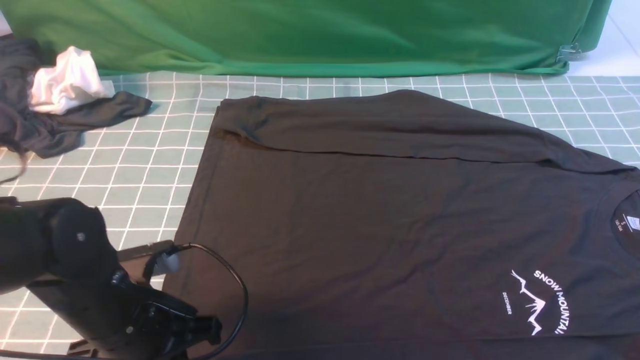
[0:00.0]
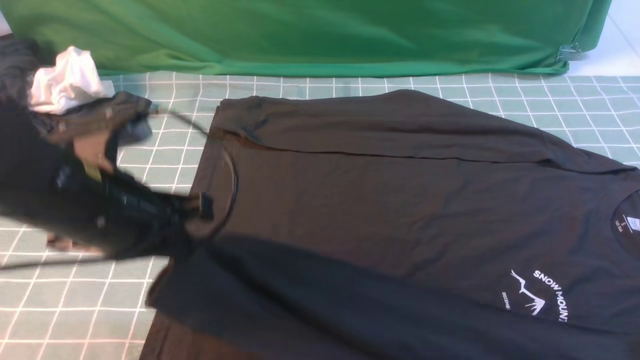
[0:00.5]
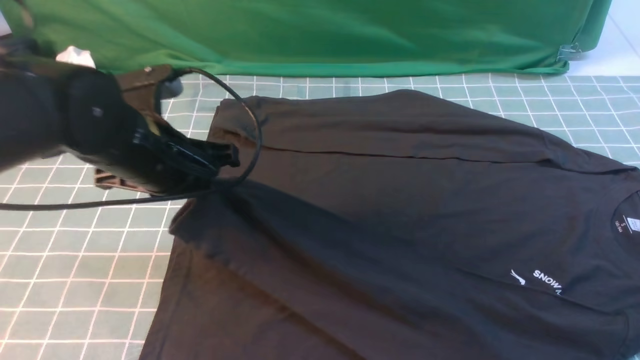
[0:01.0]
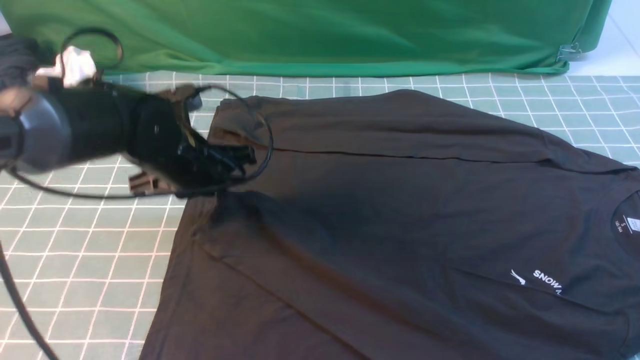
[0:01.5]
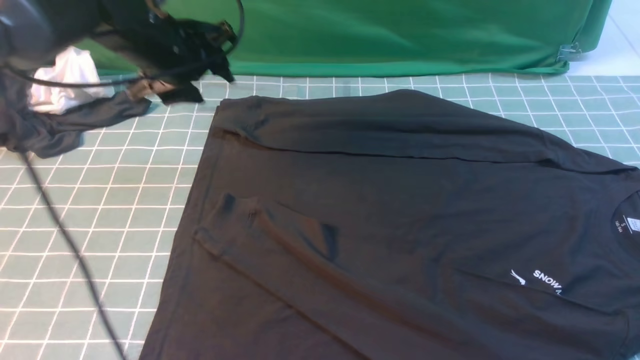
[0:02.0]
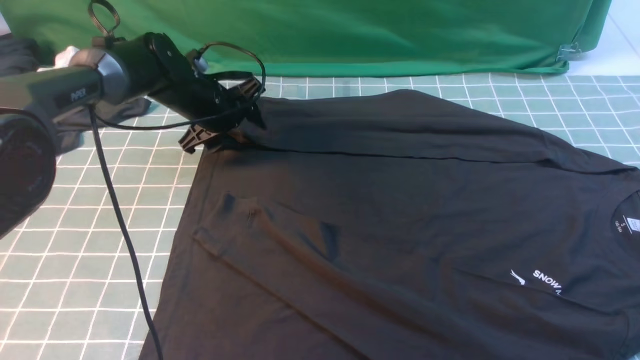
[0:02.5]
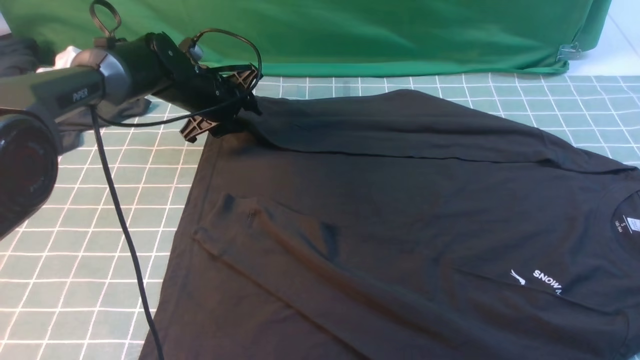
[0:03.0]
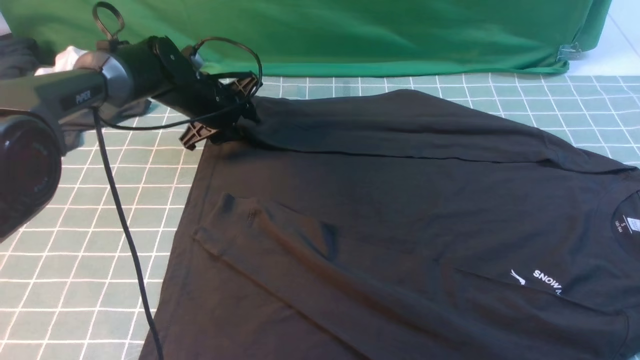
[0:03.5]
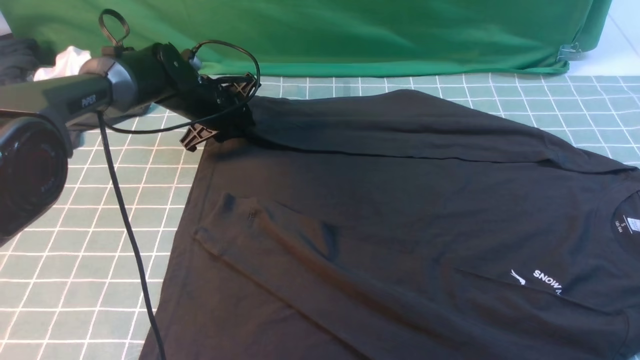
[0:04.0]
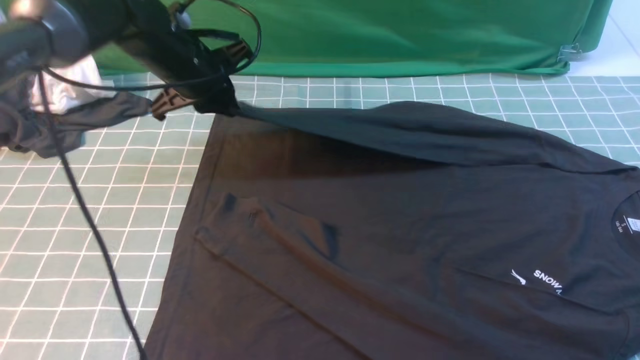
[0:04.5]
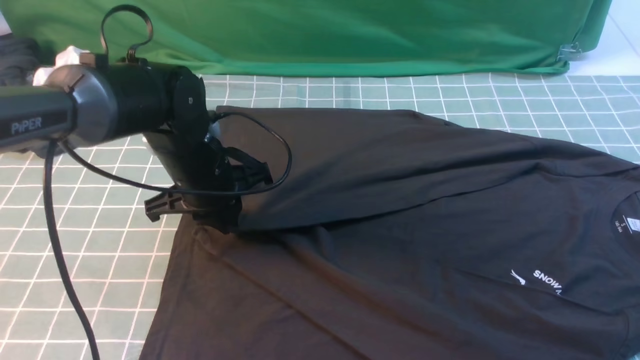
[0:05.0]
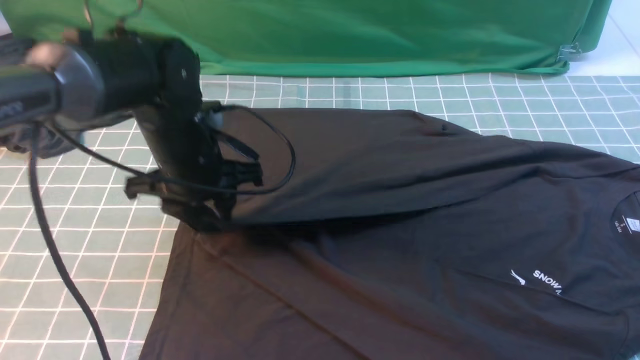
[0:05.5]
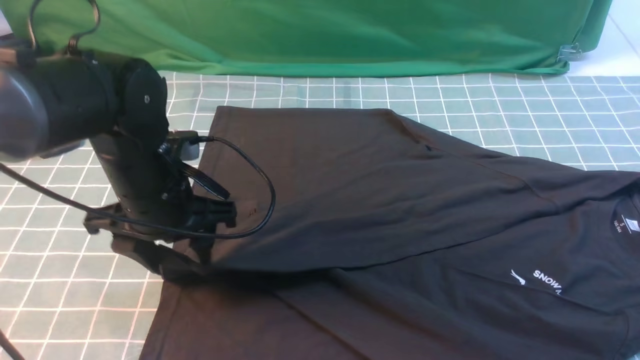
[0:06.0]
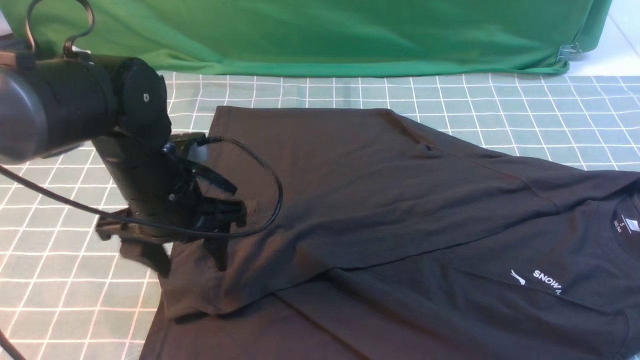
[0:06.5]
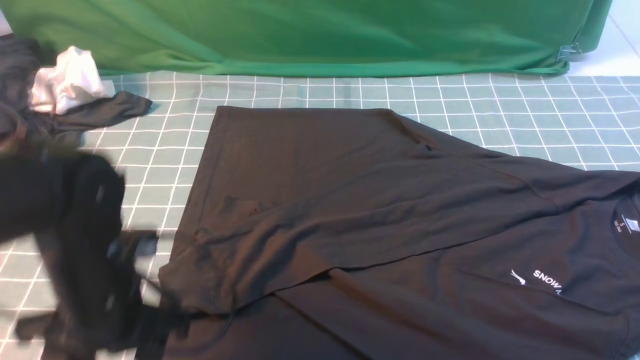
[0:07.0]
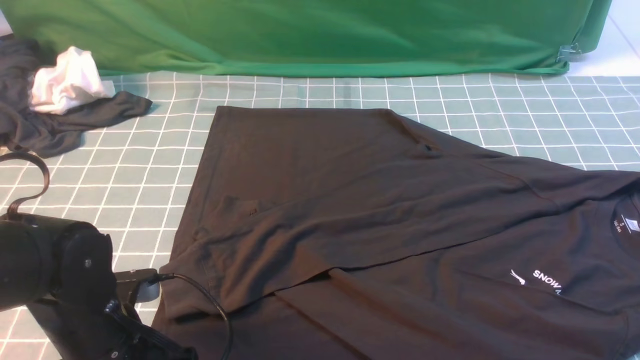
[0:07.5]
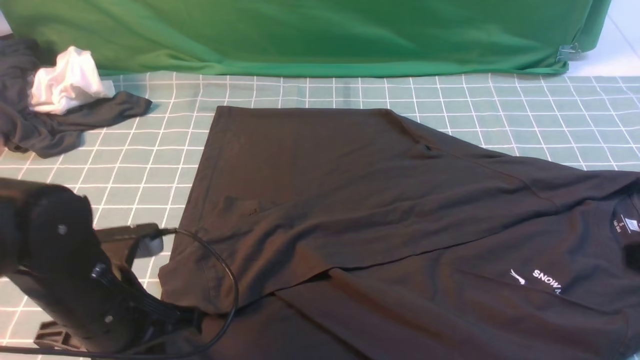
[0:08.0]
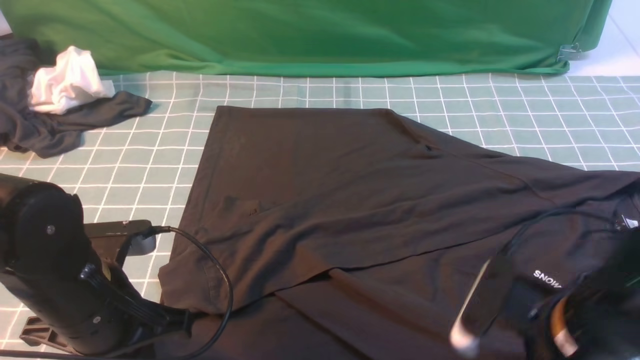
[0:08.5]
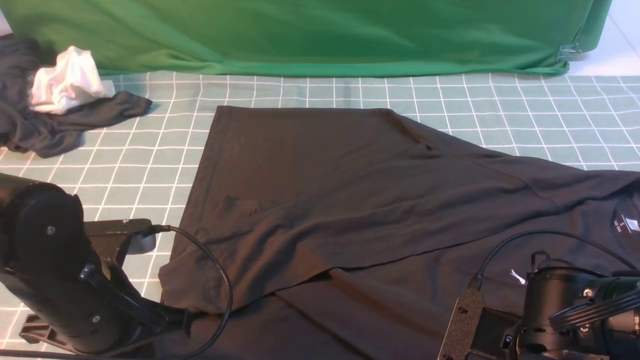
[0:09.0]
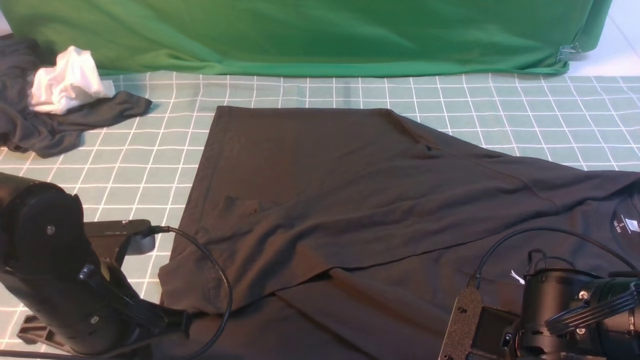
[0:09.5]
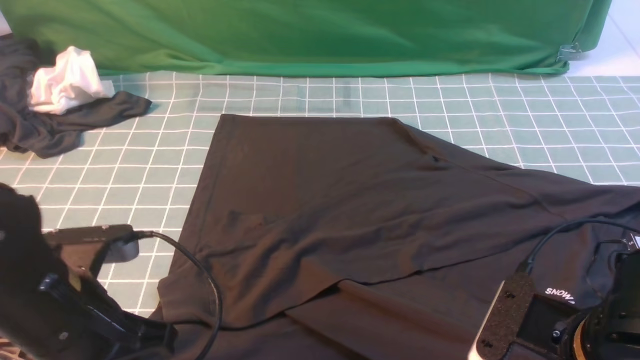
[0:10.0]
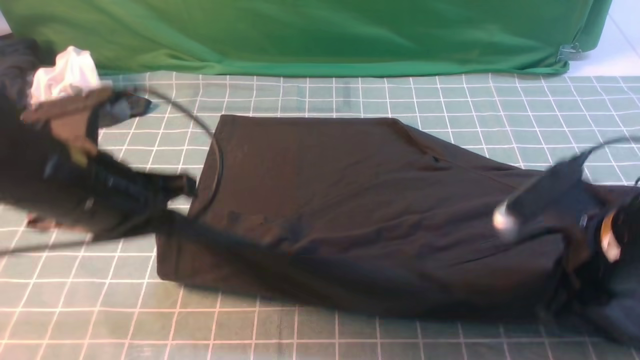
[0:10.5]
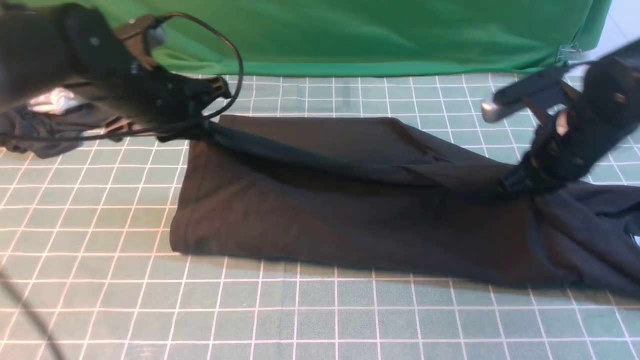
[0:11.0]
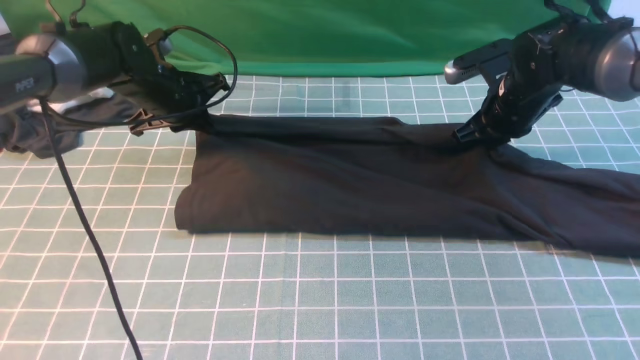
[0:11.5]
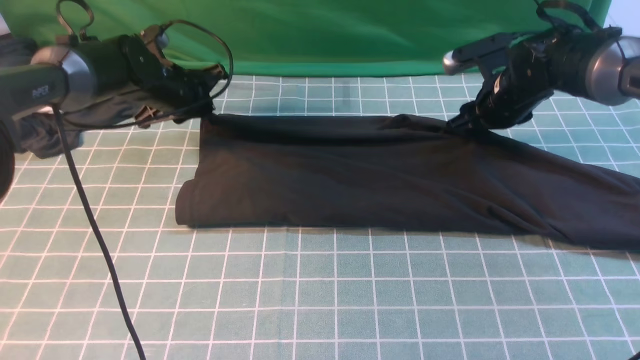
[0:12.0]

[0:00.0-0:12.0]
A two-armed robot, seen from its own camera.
Step, 0:00.5 to 0:01.5: use the left arm to drag and place the cuff at the centered position on the left edge of the fabric.
Step, 0:02.0 to 0:04.0: use the left arm to clamp the cuff farthest from it.
Step, 0:04.5 to 0:06.5: use the left arm to drag and drop the cuff onto the cuff closest to the left arm.
Step, 0:07.0 to 0:10.0: use both arms simultaneously to clamp the lower edge of the clothing fabric.
0:00.0 to 0:02.0: The left gripper is displaced forward by approximately 25 cm, and opens.
0:02.0 to 0:04.0: The left gripper moves downward and forward, about 10 cm, and closes up.
0:04.0 to 0:06.0: The left gripper moves backward, some 20 cm, and opens its fingers.
0:06.0 to 0:08.0: The left gripper shifts approximately 10 cm backward, and closes.
0:08.0 to 0:10.0: The right gripper travels to the left and downward by approximately 10 cm, and closes its fingers.
0:10.0 to 0:12.0: The grippers both shift forward by about 35 cm. The right gripper opens.

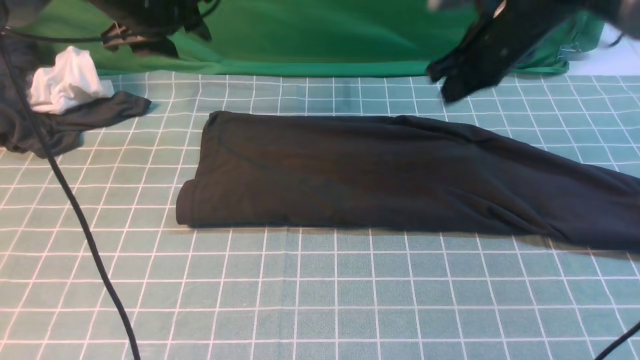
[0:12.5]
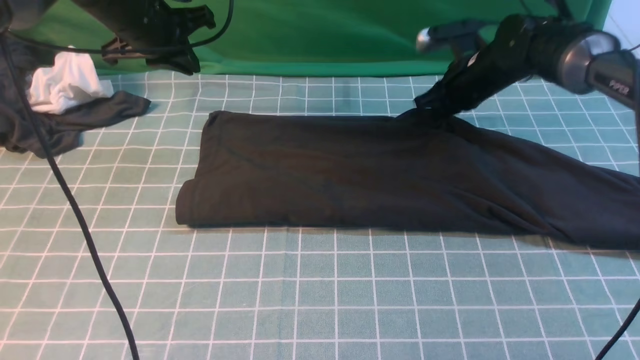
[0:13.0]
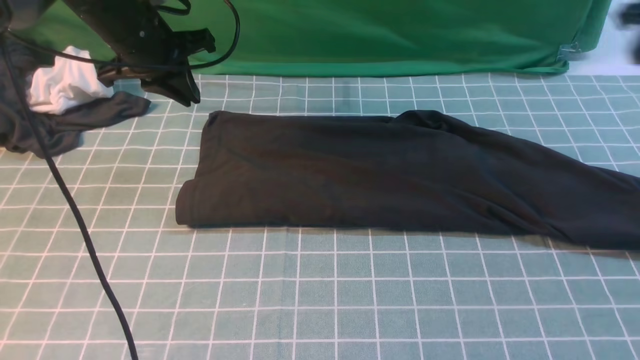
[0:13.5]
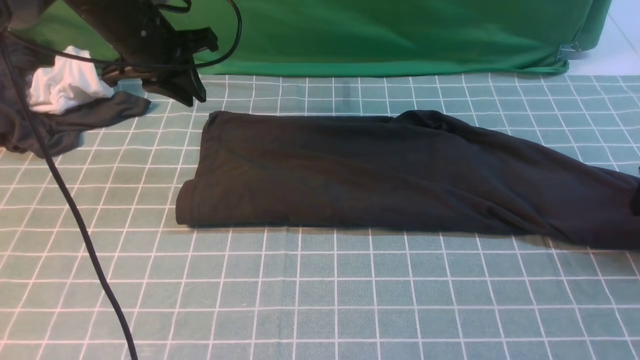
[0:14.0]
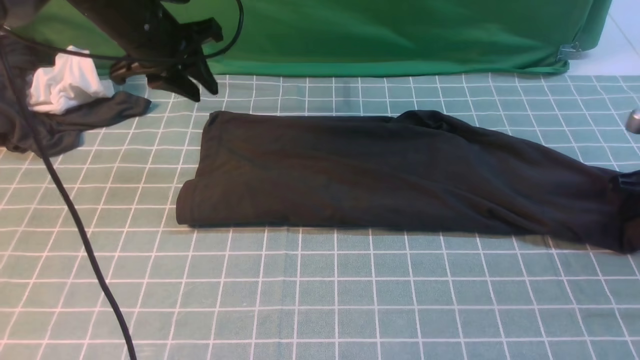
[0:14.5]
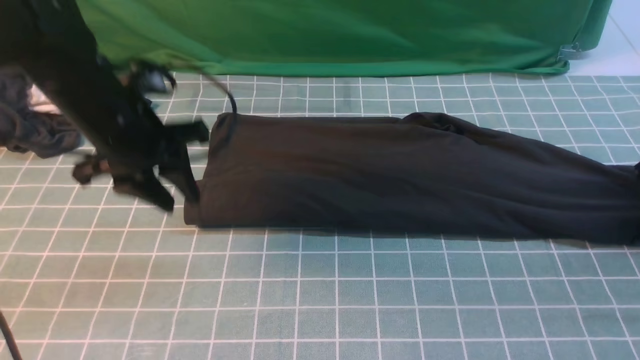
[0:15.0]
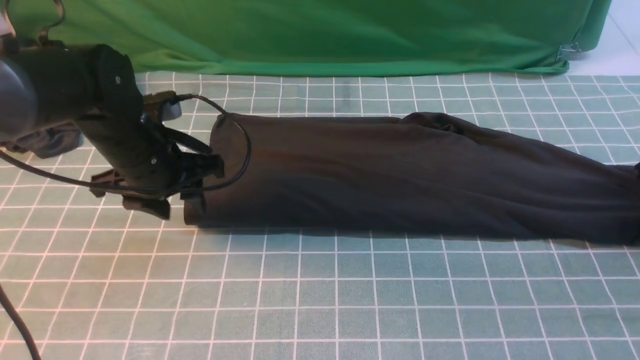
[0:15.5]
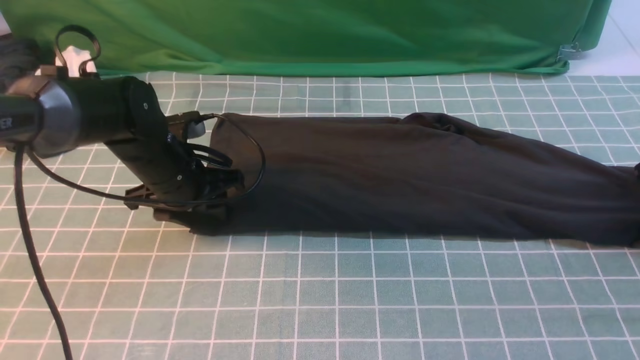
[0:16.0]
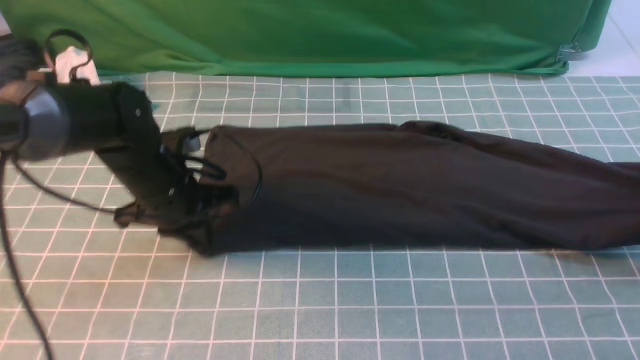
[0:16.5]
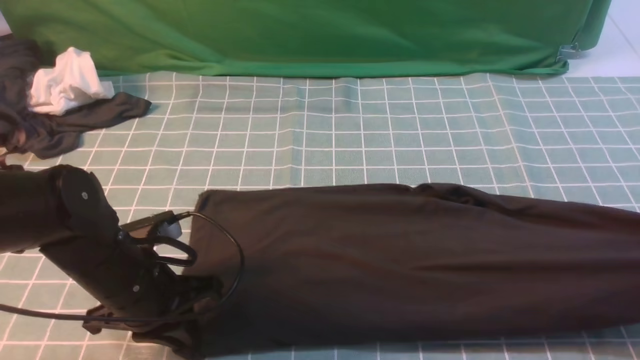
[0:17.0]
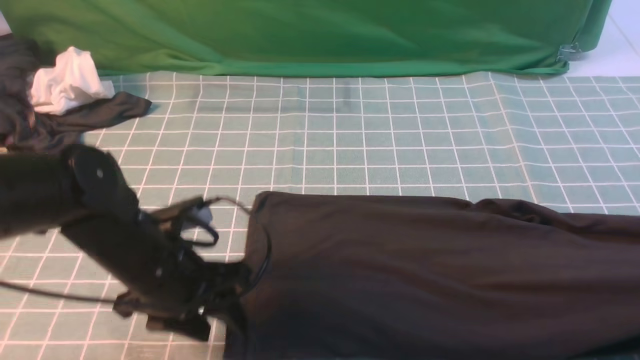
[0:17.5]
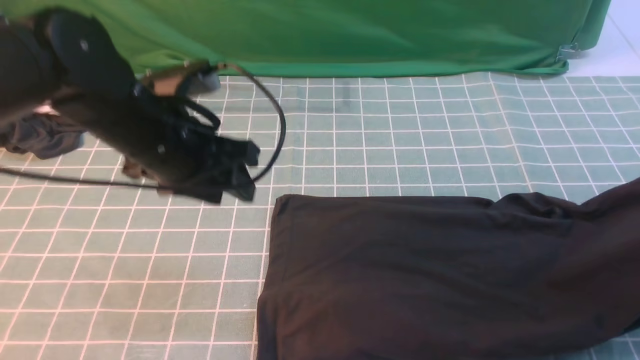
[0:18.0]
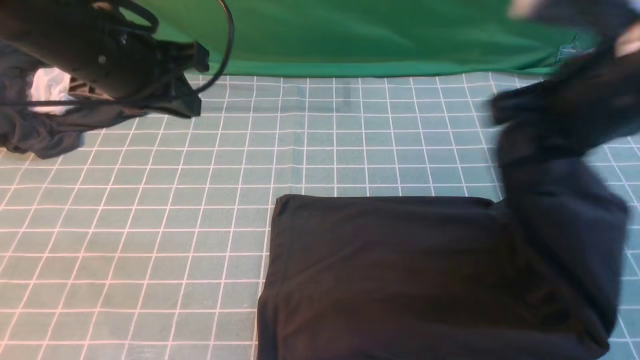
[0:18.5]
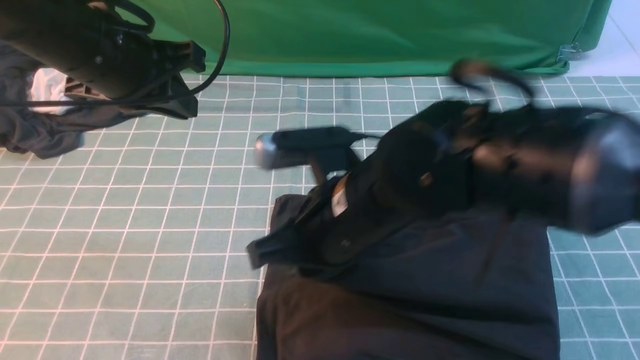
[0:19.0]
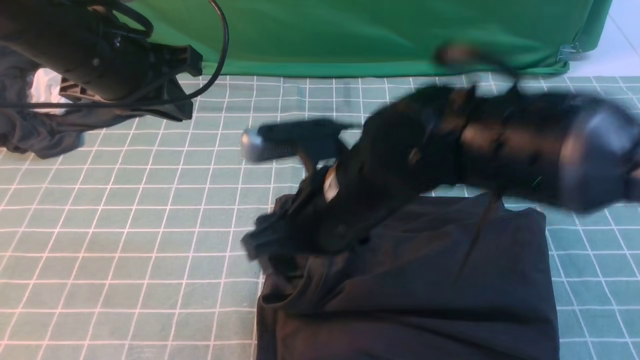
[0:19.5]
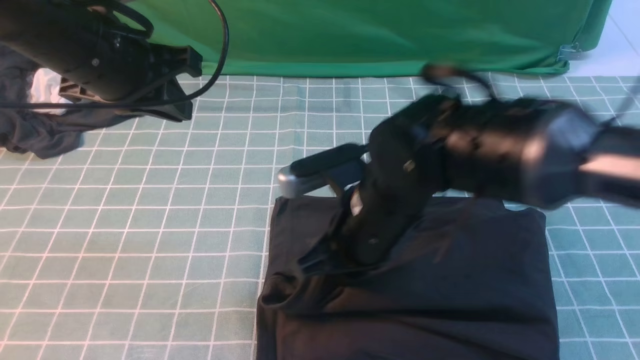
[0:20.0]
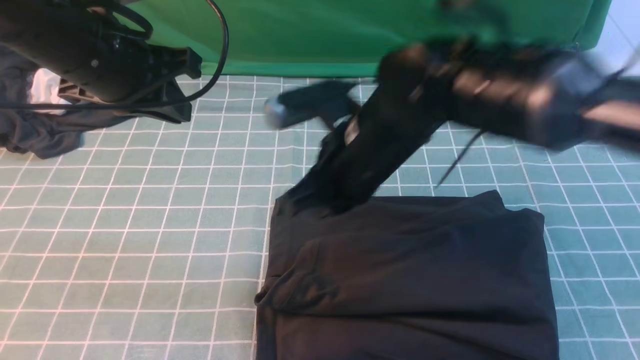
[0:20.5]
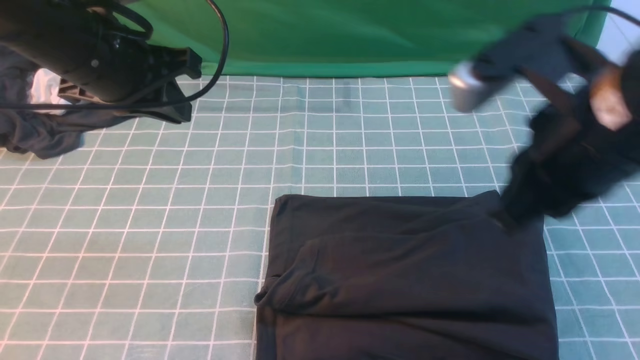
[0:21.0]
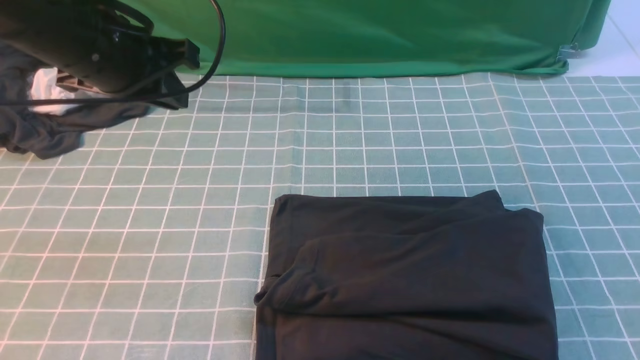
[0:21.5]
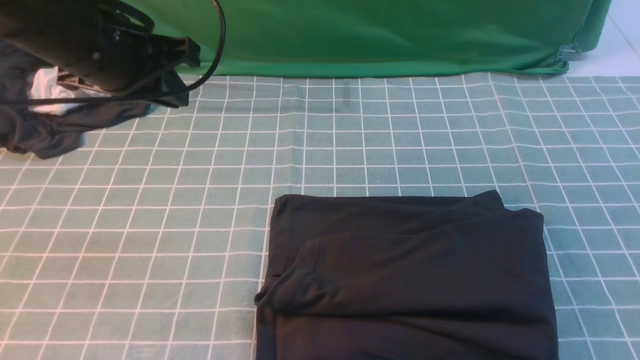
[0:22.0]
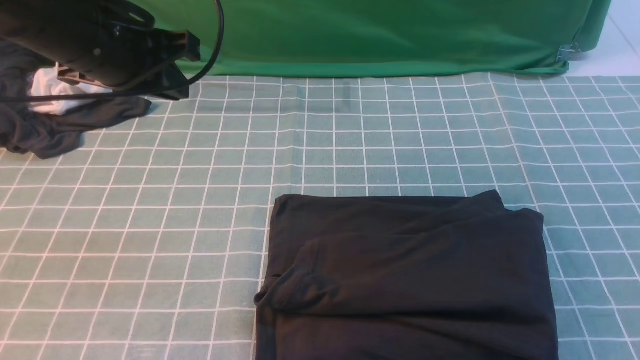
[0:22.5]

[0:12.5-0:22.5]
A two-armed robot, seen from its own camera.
Step, 0:14.0 to 0:17.5: use the right arm to clamp the right edge of the fabric.
Step, 0:18.0 to 0:20.5: use the right arm to drag the right edge of the fabric to the left and folds it over the left edge.
0:12.5 to 0:14.5: The right gripper shifts some 25 cm to the right and backward, and opens its fingers. The left gripper closes, then opens again.
0:14.5 to 0:16.5: The right gripper goes about 5 cm upward, and closes; the left gripper heads downward and backward, covering roughly 20 cm, and closes up.
0:16.5 to 0:18.5: The left gripper heads upward, covering approximately 15 cm, and opens, then closes once more. Meanwhile the right gripper moves to the left and upward, some 25 cm.
0:18.5 to 0:20.5: The right gripper is displaced to the left and downward by approximately 15 cm, and opens, then closes once more.
0:20.5 to 0:22.5: The right gripper shifts some 35 cm to the right and backward.
